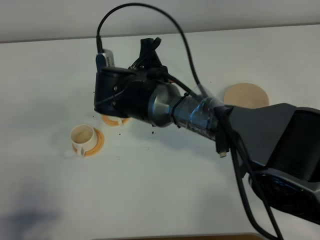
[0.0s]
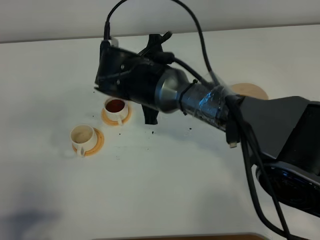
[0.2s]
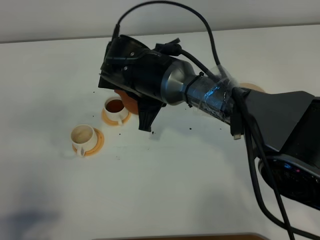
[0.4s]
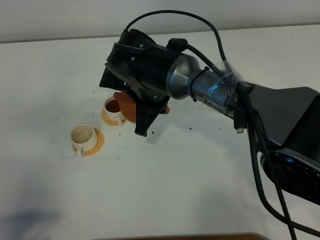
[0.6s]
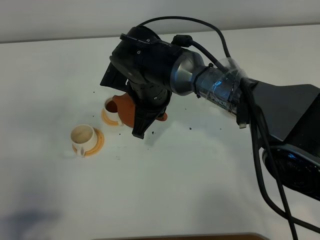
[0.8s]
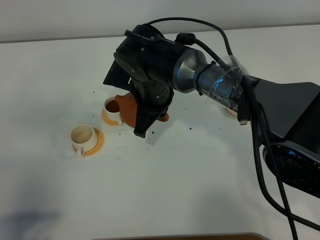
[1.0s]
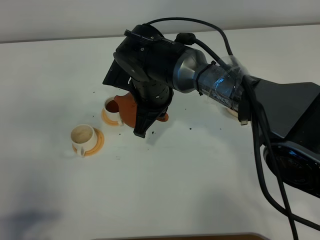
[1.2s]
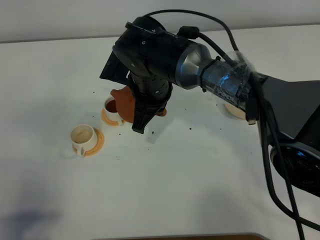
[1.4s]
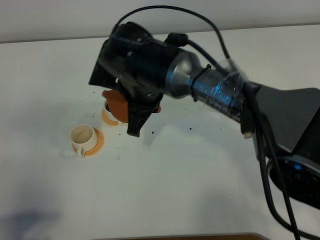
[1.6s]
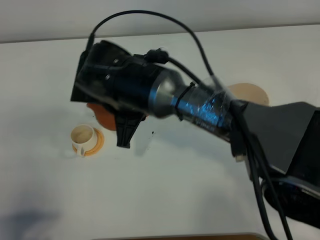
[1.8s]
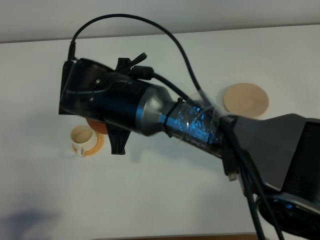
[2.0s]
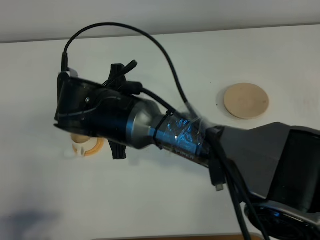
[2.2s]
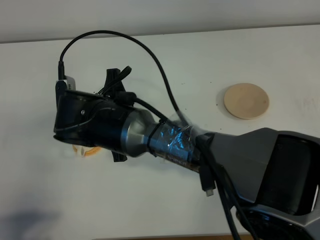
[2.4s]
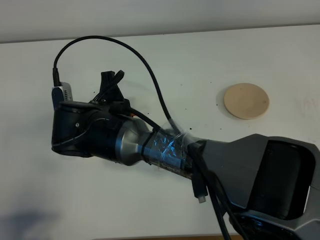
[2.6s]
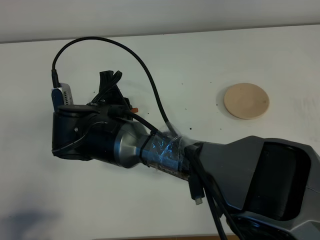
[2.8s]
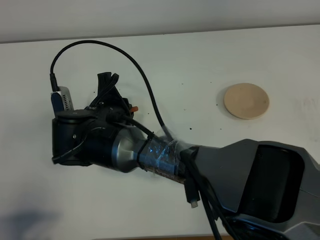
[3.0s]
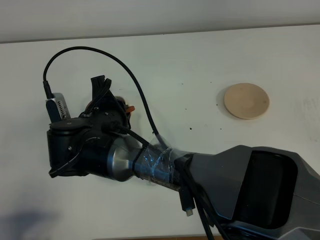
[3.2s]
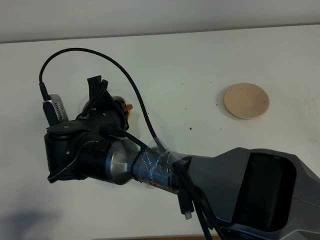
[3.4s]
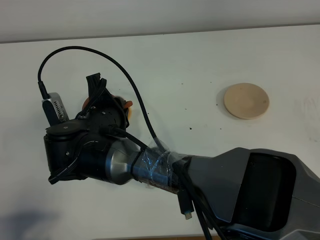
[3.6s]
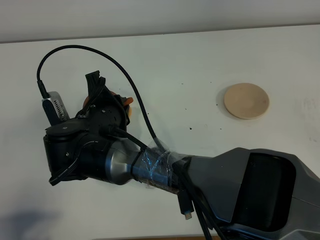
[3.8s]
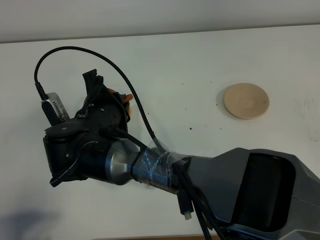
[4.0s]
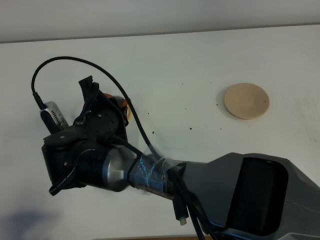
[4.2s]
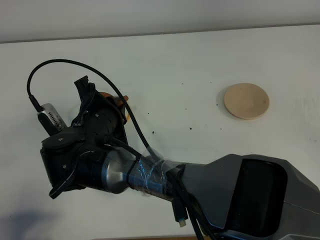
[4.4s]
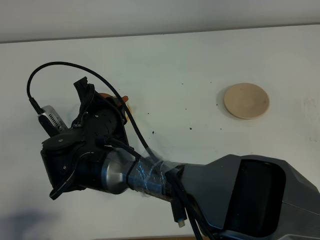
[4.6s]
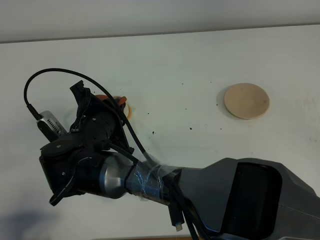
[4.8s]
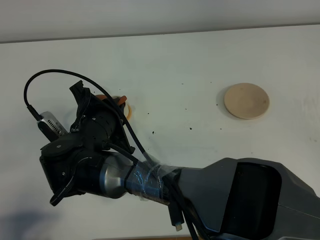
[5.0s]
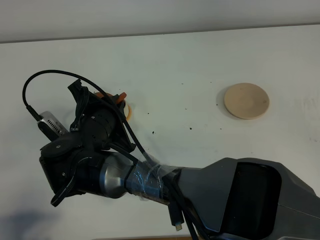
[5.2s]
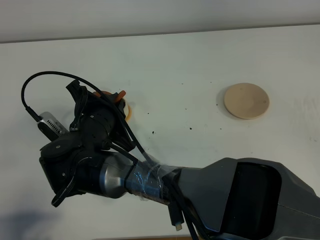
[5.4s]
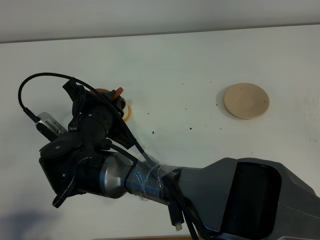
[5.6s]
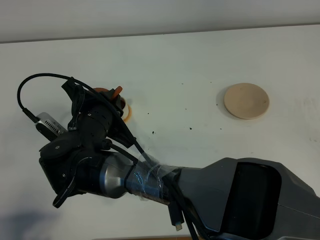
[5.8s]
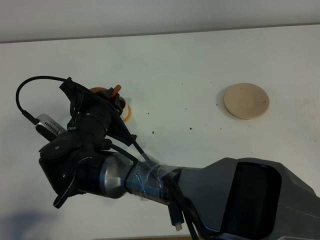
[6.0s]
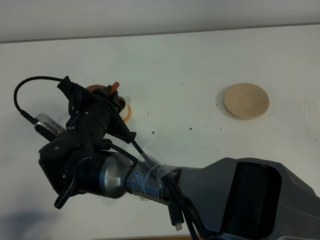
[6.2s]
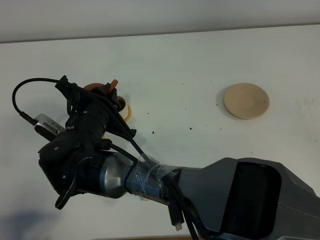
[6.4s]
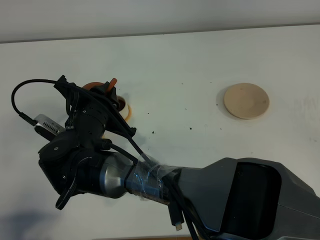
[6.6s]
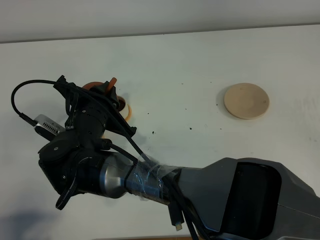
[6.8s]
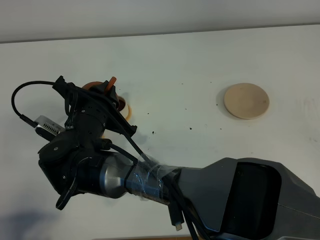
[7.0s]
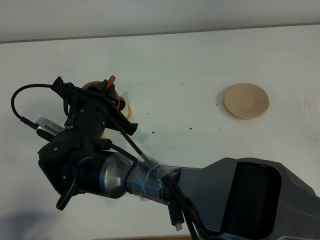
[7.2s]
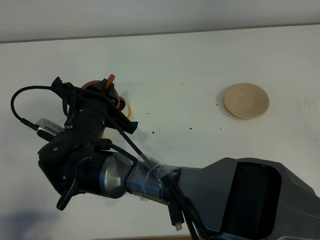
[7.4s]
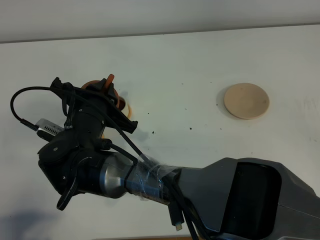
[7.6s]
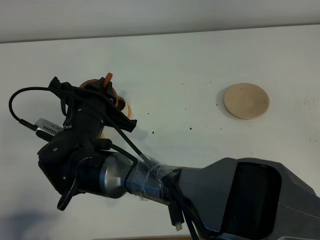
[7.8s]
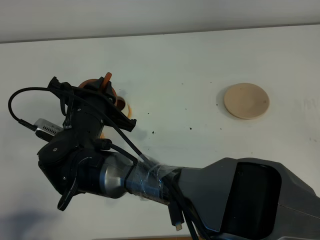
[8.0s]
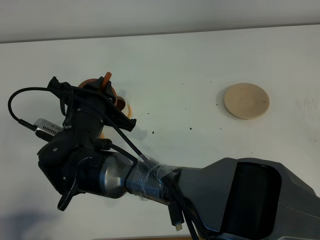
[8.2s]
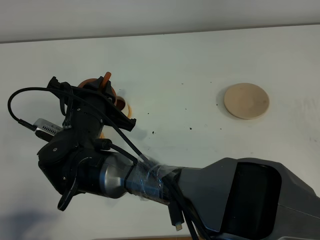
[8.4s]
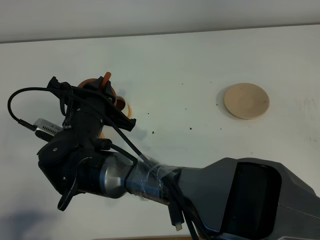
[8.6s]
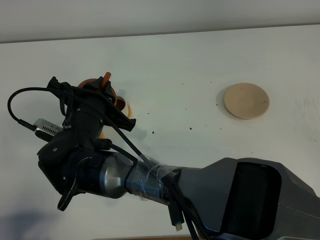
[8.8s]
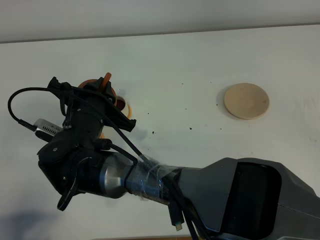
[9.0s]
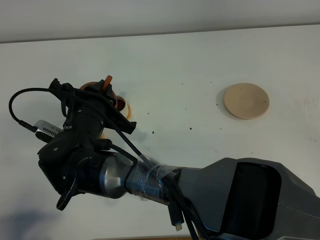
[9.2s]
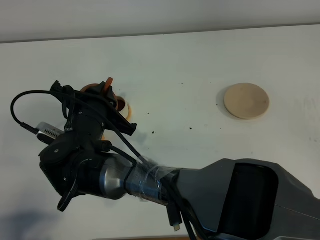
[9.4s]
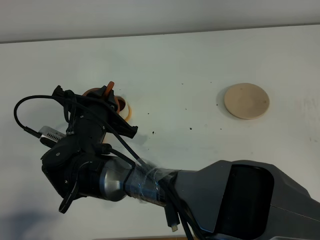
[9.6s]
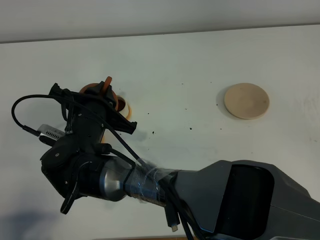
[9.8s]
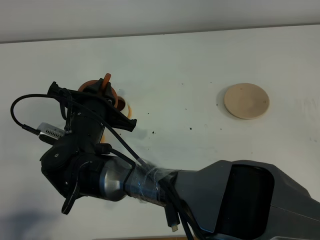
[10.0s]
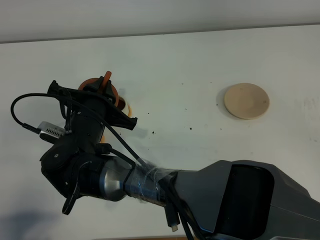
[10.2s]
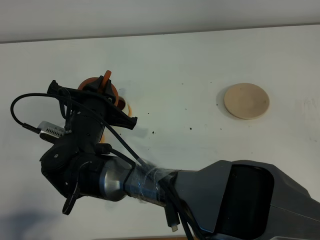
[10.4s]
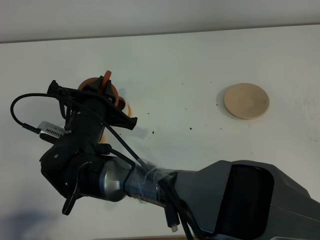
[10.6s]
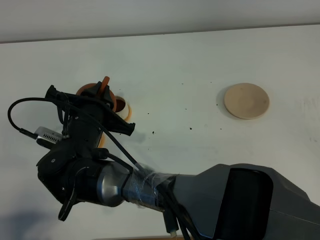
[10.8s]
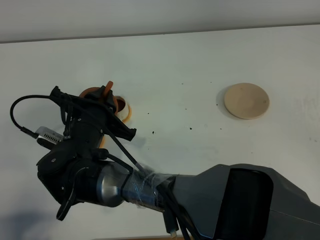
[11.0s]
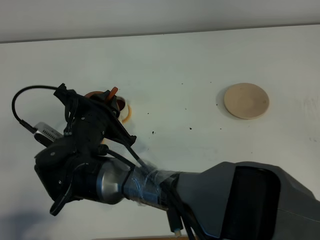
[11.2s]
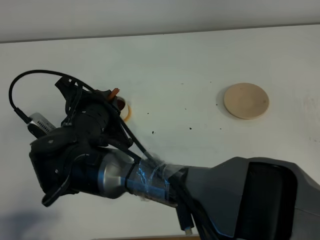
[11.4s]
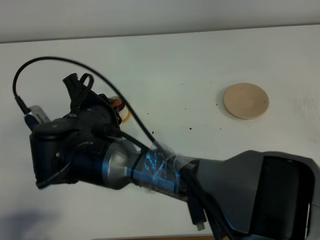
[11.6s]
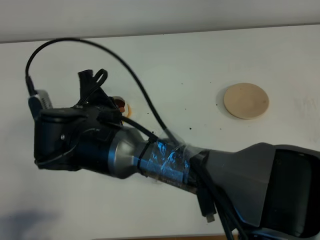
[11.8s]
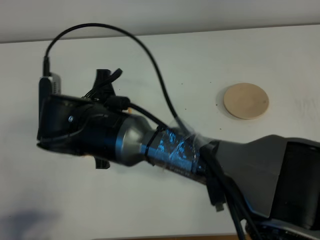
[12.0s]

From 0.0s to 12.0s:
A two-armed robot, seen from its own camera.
Task of the whole recording: grasp the brown teapot and pour the tea into the two white teacups one by one, put the brown teapot back in its original place.
From 1.6s to 3.0s: The right gripper shifts about 10 cm backward and to the left.
From 4.4s to 6.0s: The grippers make only small movements.
From 6.0s to 7.6s: There are only small adjustments of the grippers.
From 7.6s to 9.0s: Neither gripper changes place.
From 9.0s to 10.4s: There are only small adjustments of the grippers.
From 10.4s to 12.0s: The right gripper heads upward, covering some 5 cm.

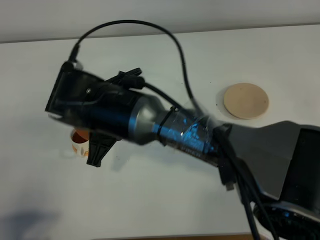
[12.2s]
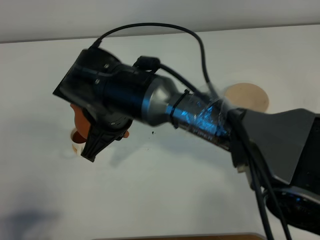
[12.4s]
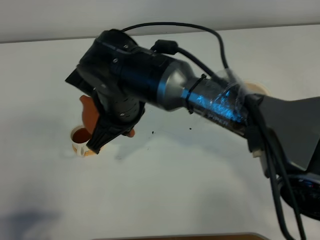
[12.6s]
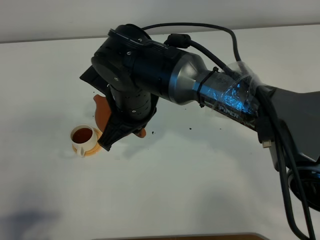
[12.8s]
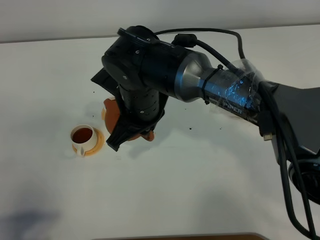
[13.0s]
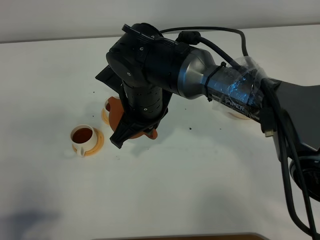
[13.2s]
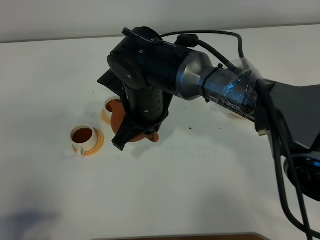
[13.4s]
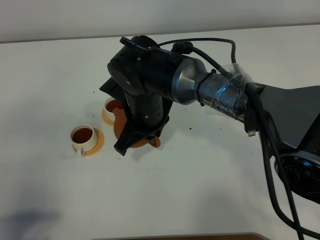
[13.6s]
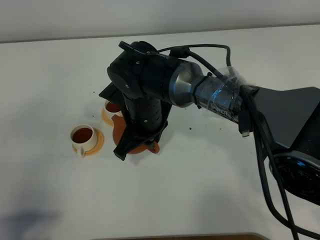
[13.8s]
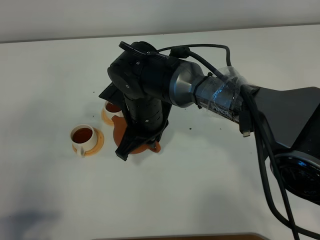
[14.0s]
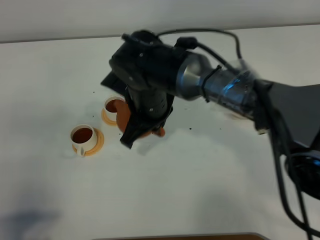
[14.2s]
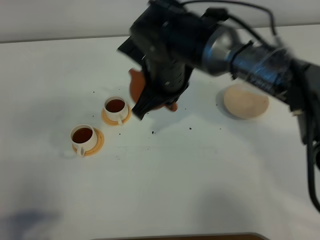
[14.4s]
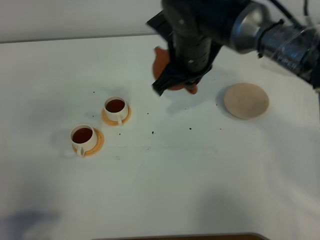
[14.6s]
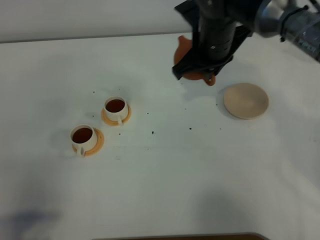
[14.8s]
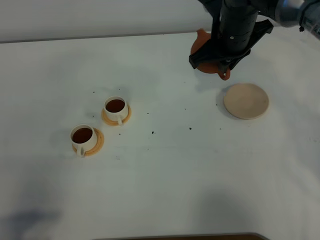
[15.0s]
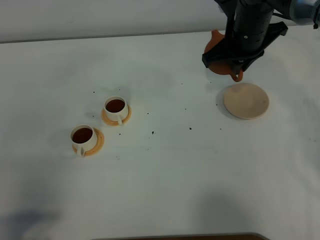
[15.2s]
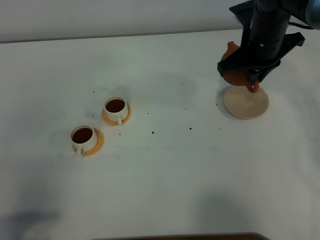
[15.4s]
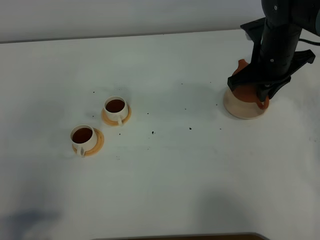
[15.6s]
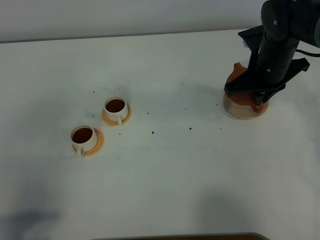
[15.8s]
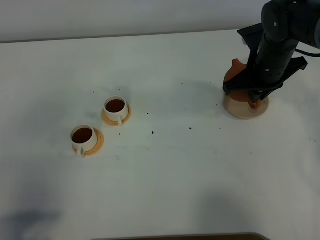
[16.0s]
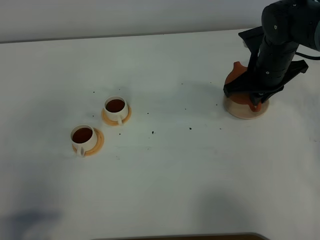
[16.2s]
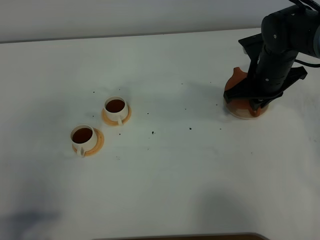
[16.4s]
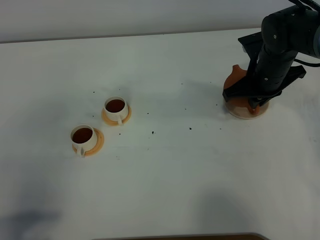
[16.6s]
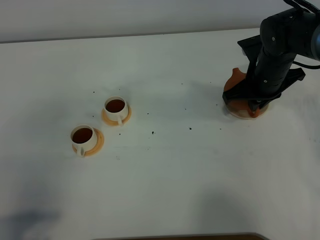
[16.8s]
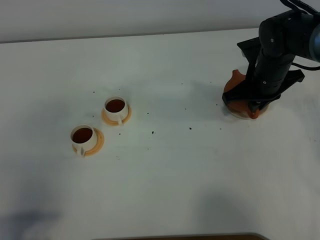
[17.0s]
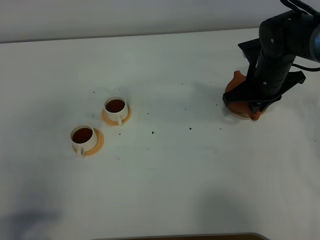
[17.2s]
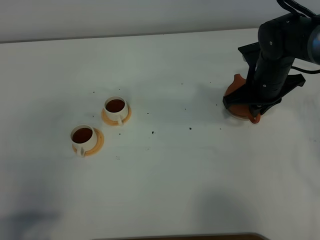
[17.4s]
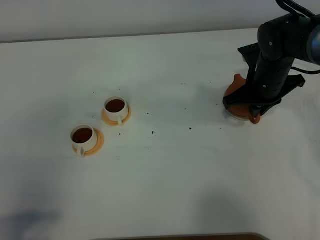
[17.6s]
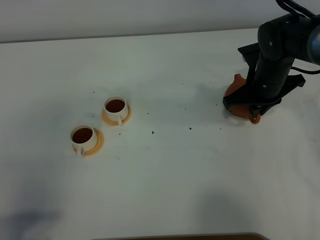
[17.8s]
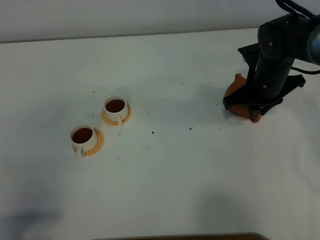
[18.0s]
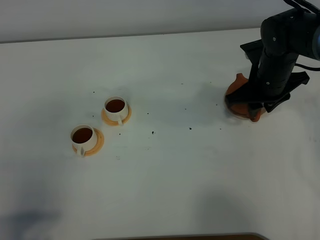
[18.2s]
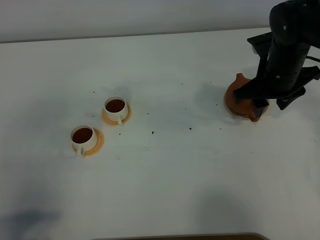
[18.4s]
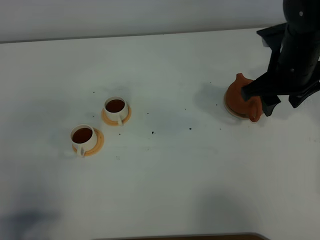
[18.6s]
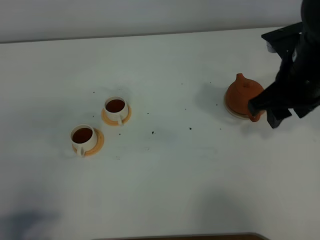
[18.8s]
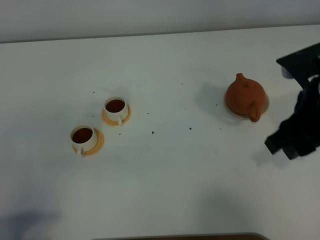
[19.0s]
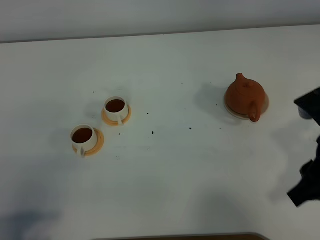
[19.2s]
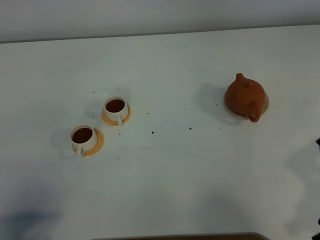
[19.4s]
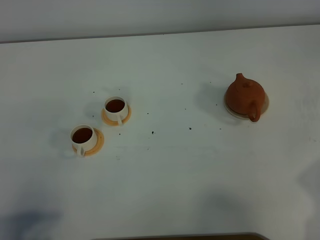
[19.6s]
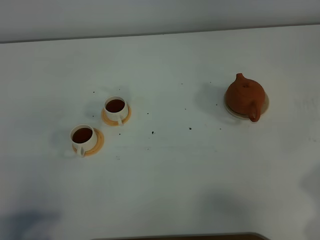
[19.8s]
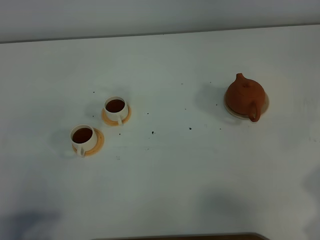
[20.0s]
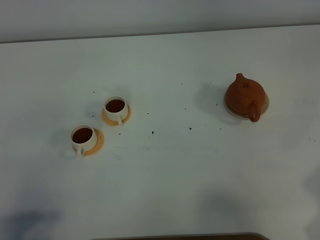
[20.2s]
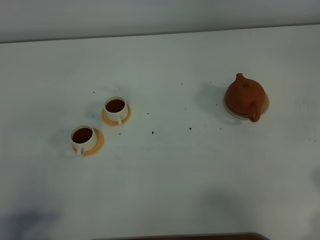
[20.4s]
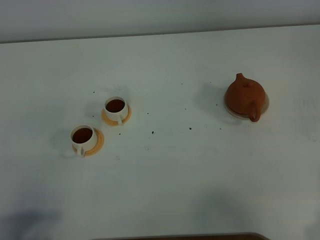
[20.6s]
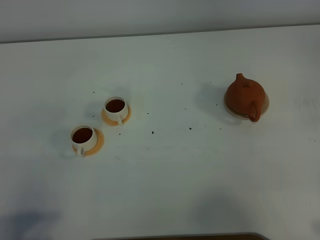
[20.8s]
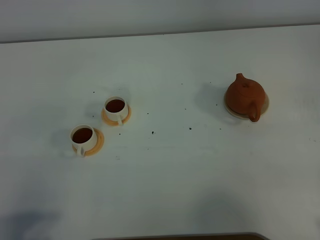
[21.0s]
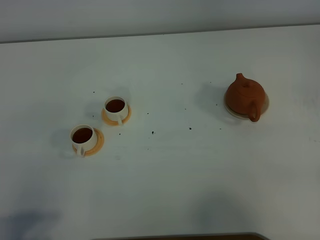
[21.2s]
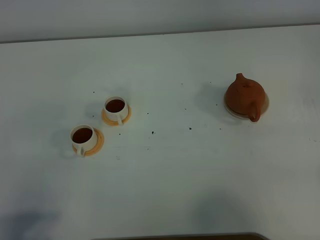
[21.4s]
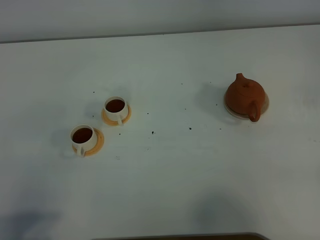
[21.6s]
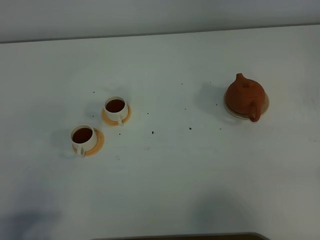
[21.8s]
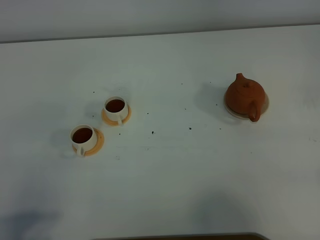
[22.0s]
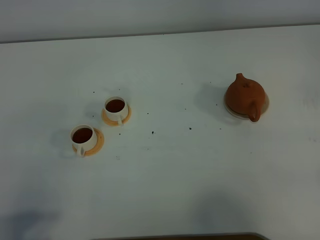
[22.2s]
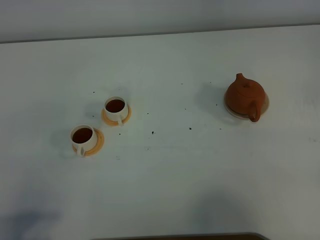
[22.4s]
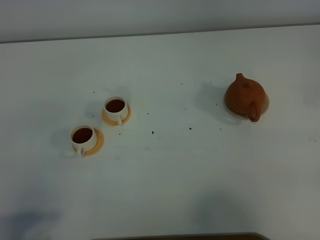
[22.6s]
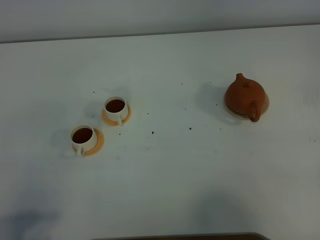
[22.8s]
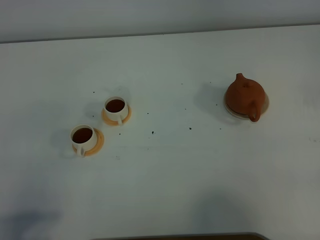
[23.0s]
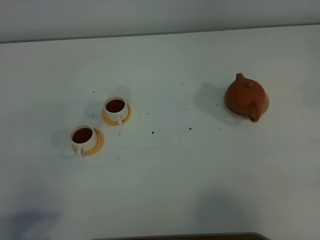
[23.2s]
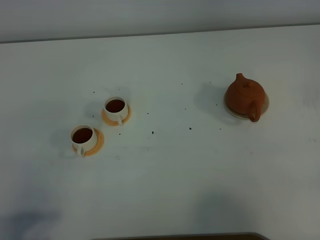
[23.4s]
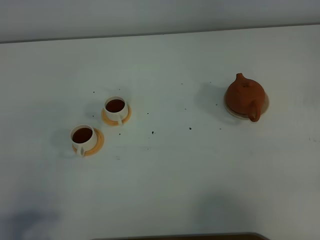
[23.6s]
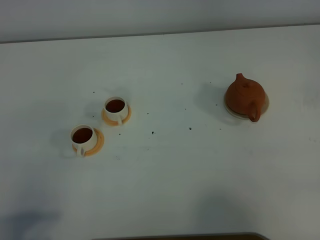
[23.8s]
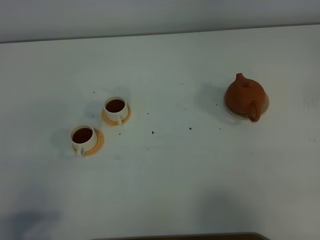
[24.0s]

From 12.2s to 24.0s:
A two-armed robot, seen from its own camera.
Task of the whole recording: grasp the brown teapot and pour the tea into the two white teacups one by one, put the brown teapot back in its original place.
From 12.2s to 13.6s: The right gripper goes approximately 5 cm forward.
From 13.6s to 15.2s: The right gripper moves to the right and forward, about 20 cm.
From 15.2s to 16.6s: The right gripper moves downward, some 5 cm.
From 16.6s to 18.2s: The right gripper opens up.
From 18.2s to 19.6s: The right gripper travels backward and to the right by roughly 30 cm.
